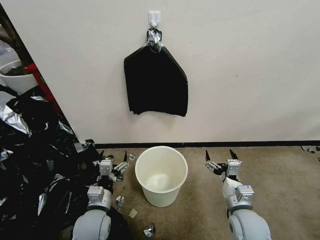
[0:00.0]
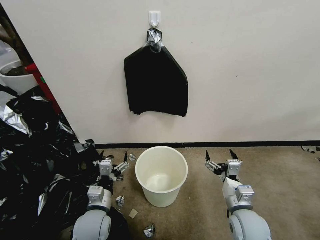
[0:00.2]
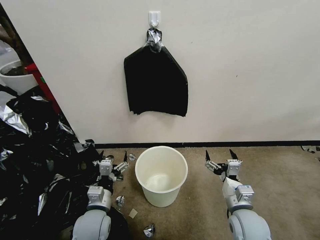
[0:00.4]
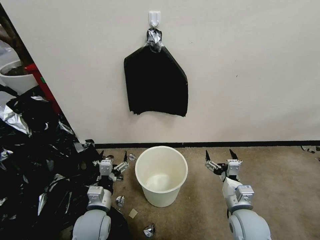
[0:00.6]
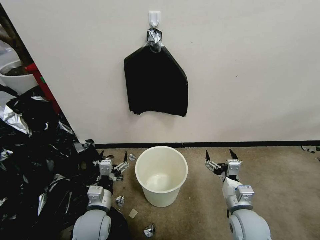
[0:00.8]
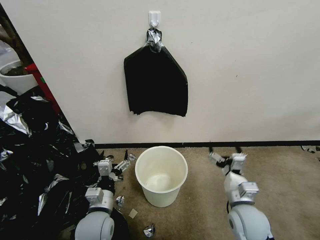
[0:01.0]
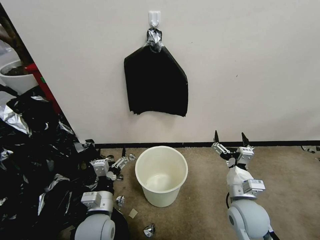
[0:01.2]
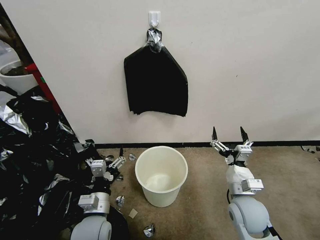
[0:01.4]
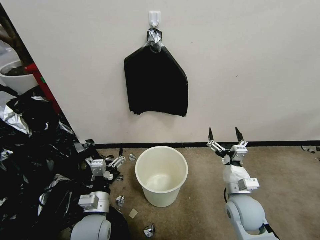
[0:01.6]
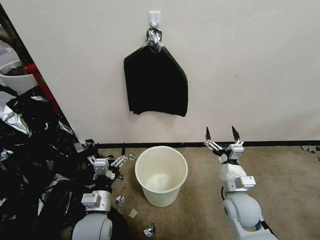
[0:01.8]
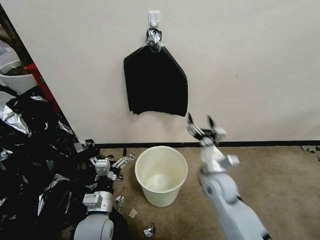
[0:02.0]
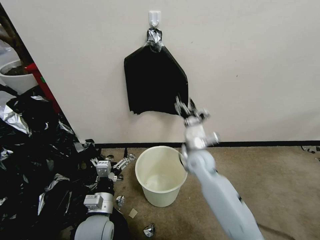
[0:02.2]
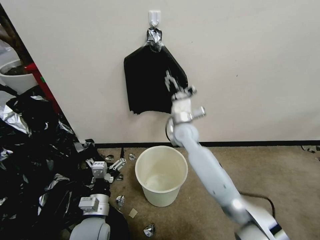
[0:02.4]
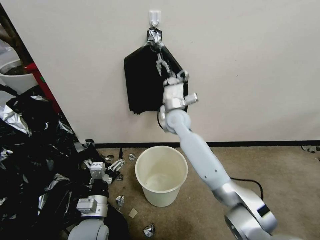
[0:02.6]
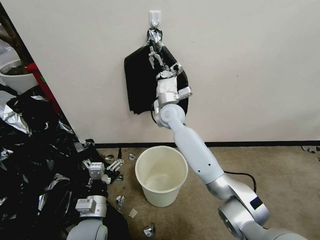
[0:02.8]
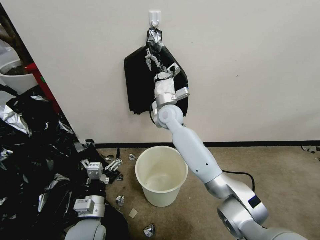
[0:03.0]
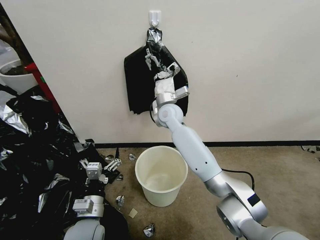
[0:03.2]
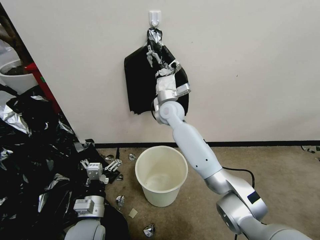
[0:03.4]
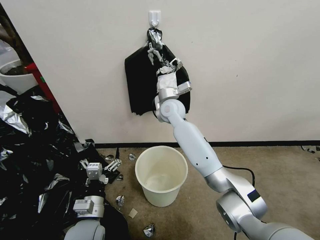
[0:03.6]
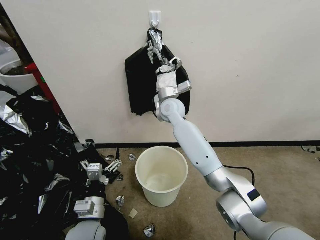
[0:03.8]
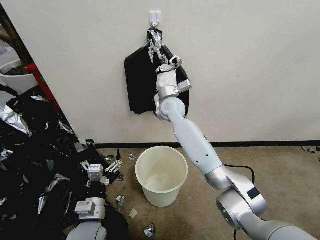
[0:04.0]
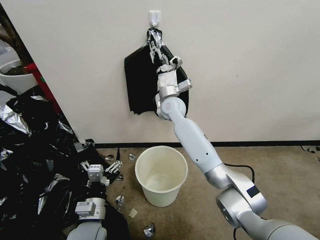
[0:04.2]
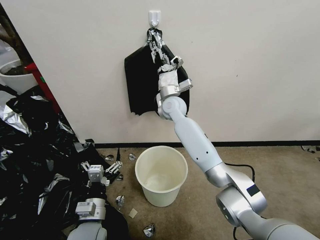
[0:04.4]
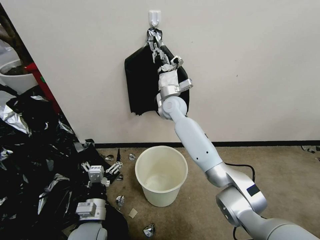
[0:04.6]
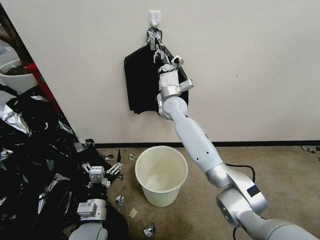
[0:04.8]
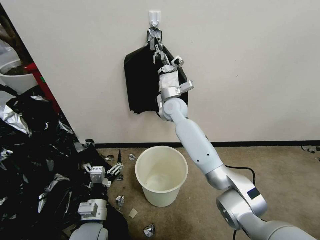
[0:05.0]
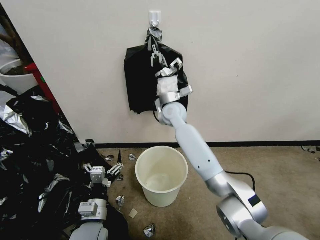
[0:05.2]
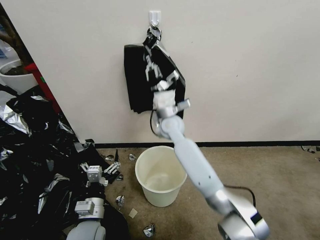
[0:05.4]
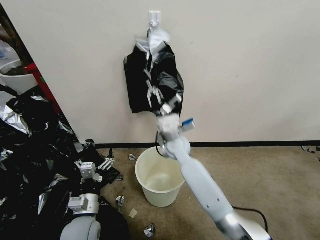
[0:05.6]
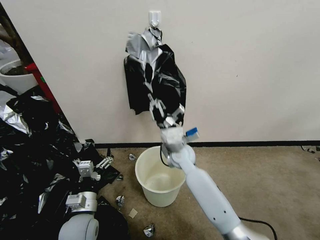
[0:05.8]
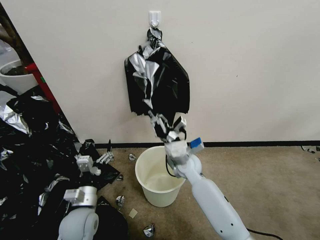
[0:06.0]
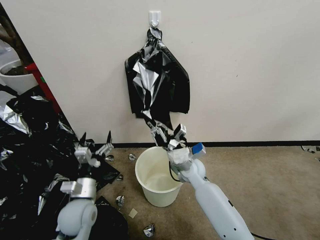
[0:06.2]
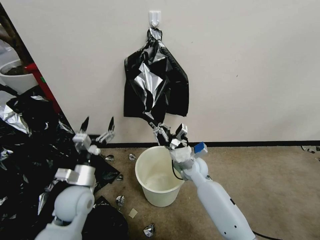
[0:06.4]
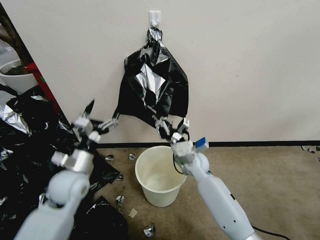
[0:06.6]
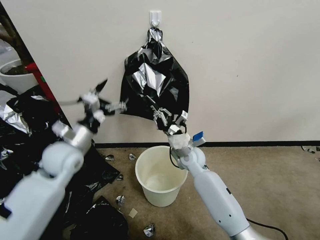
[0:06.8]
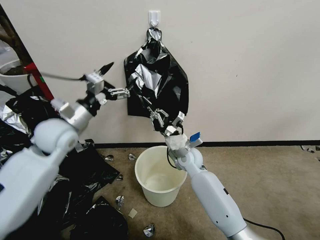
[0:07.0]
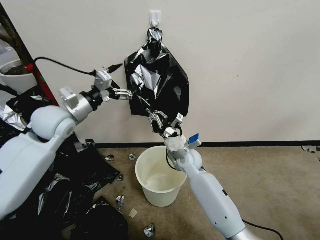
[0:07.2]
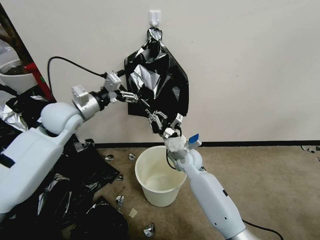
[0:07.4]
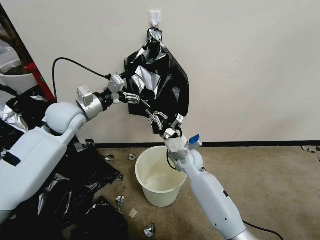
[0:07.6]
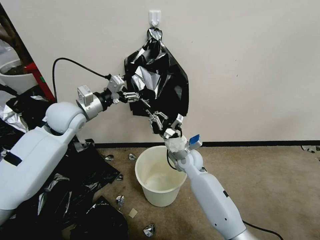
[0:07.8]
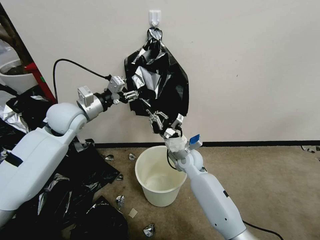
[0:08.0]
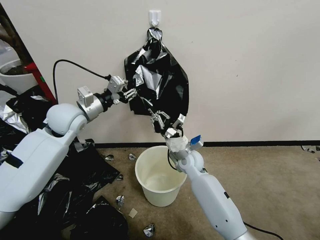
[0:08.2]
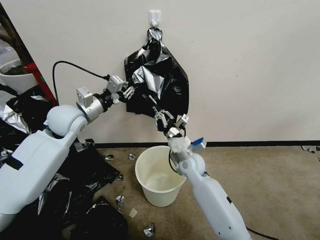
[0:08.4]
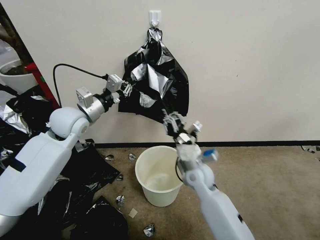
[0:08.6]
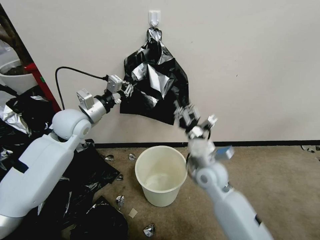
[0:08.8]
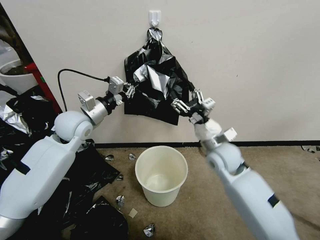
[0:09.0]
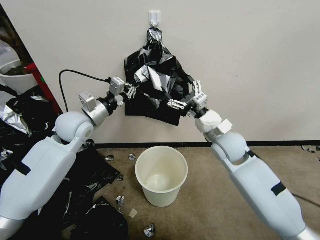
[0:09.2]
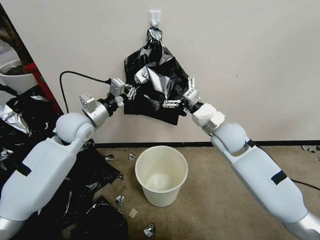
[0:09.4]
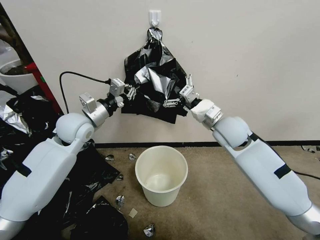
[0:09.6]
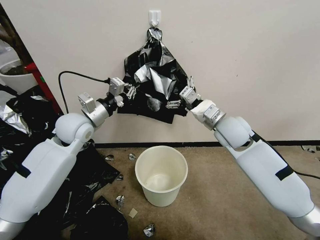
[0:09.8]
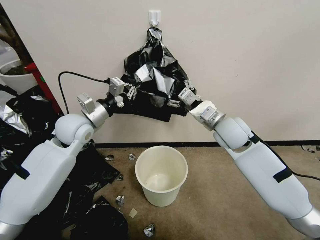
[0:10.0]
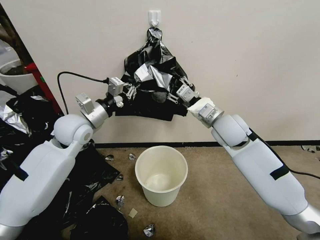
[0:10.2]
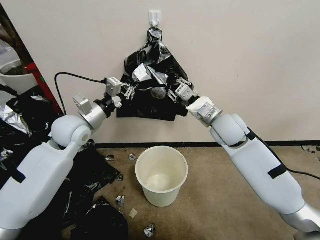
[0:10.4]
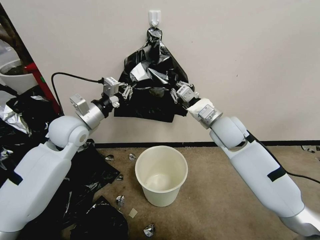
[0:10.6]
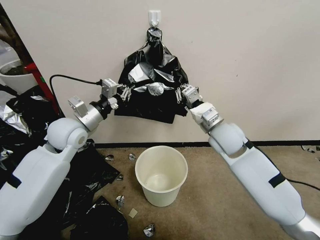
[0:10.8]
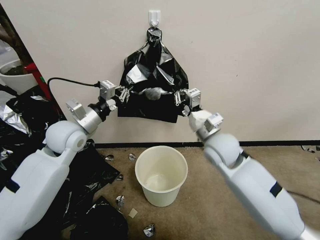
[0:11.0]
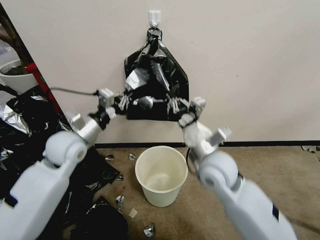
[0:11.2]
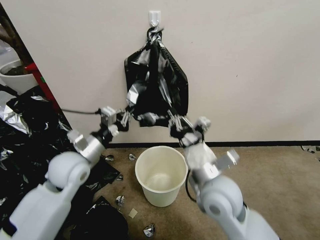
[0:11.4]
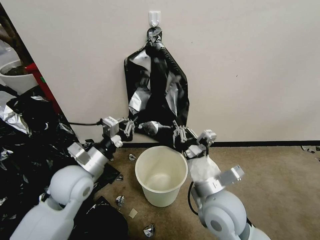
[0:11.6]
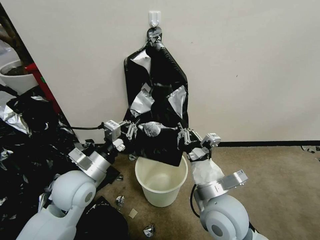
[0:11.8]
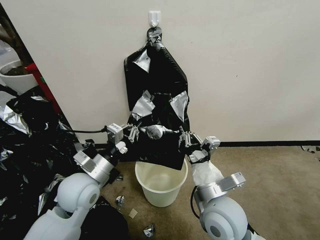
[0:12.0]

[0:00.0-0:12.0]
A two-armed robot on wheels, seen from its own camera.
Task of the whole recording: Place a trash bag onto the trash bin.
1.6 to 3.0 s: The right gripper shifts some 40 cm forward, to the left and upward.
3.0 to 4.4 s: The right gripper closes up.
4.4 to 6.0 s: The right gripper moves backward and downward, some 20 cm, and closes up. Meanwhile the left gripper ends up approximately 5 cm from where it was.
6.0 to 7.6 s: The left gripper shifts some 35 cm upward and forward.
7.6 to 9.0 s: The right gripper moves upward and to the right, some 15 cm, and opens. Meanwhile the left gripper closes.
9.0 to 10.4 s: The right gripper travels upward by approximately 10 cm, and closes.
10.4 to 12.0 s: The left gripper is displaced backward and downward by some 15 cm, while the right gripper heads backward, covering roughly 20 cm.

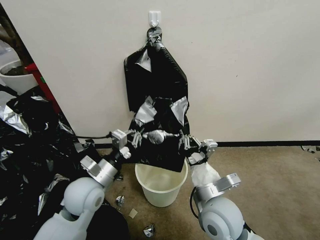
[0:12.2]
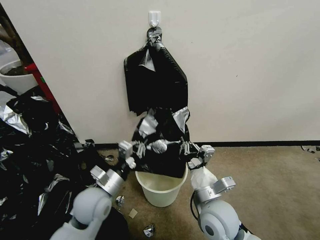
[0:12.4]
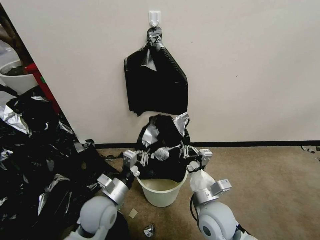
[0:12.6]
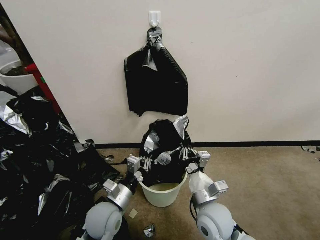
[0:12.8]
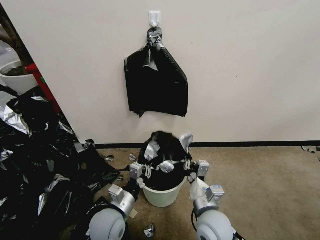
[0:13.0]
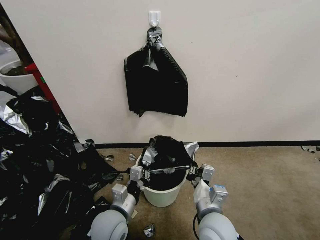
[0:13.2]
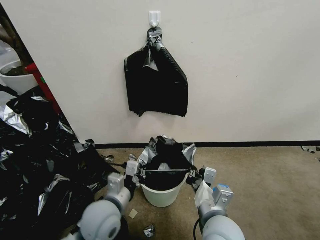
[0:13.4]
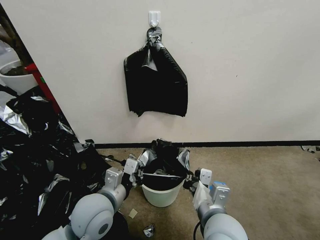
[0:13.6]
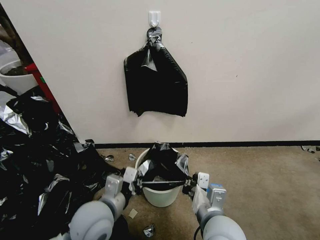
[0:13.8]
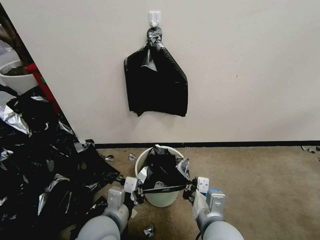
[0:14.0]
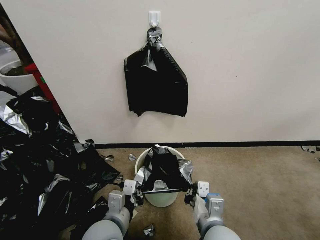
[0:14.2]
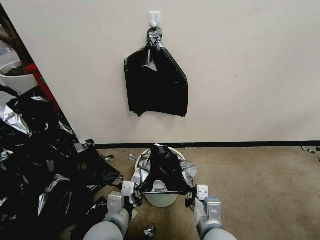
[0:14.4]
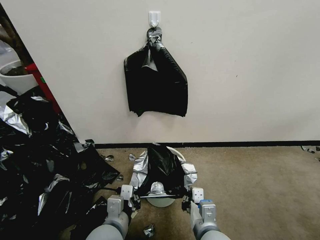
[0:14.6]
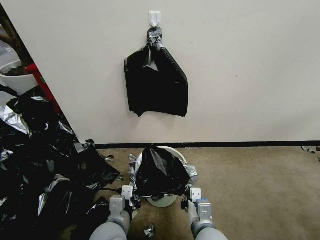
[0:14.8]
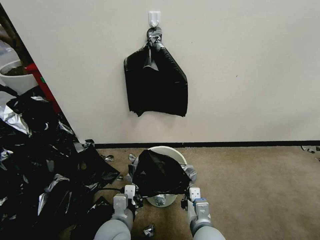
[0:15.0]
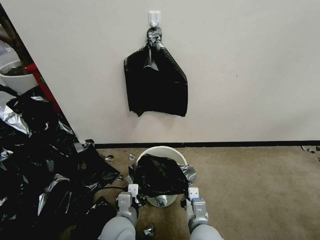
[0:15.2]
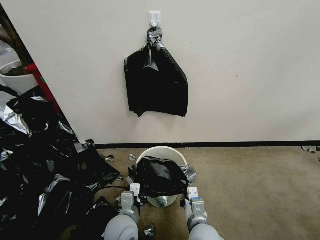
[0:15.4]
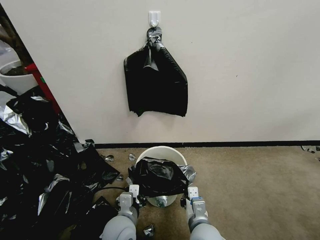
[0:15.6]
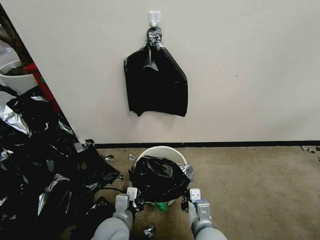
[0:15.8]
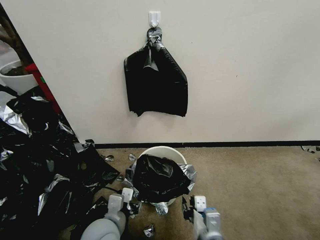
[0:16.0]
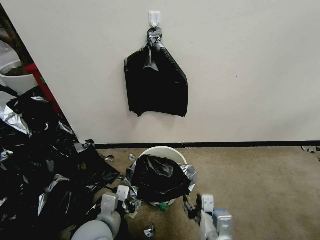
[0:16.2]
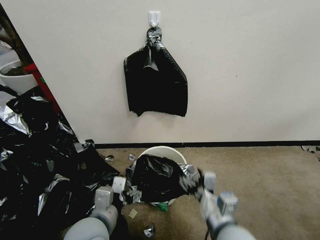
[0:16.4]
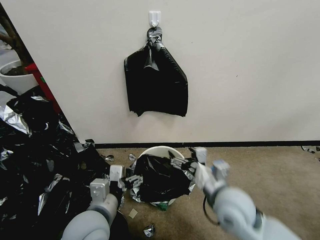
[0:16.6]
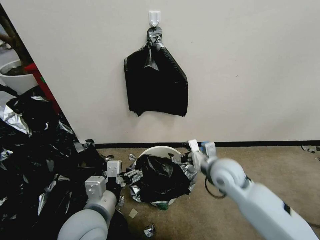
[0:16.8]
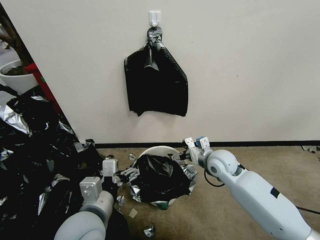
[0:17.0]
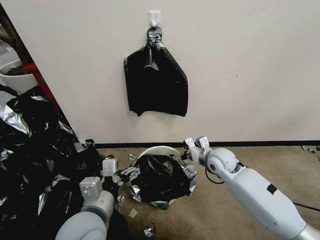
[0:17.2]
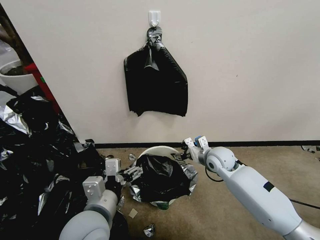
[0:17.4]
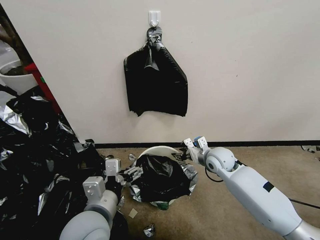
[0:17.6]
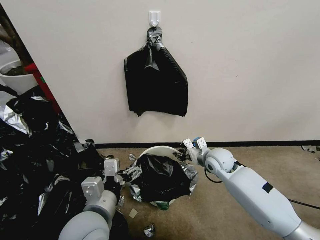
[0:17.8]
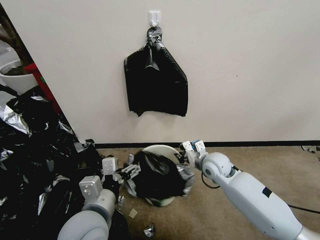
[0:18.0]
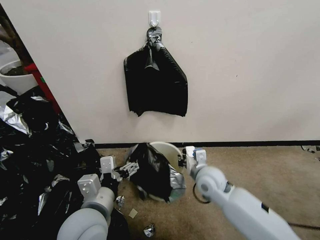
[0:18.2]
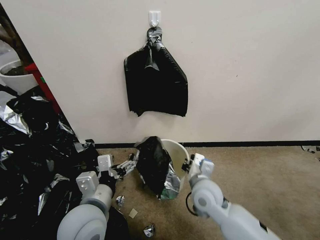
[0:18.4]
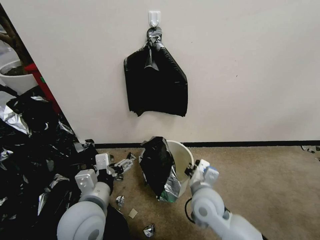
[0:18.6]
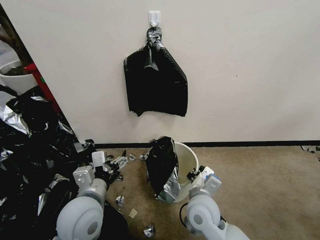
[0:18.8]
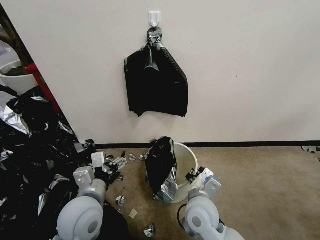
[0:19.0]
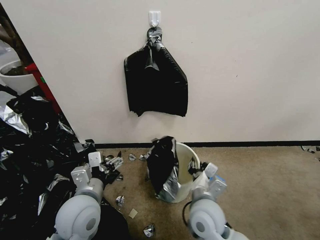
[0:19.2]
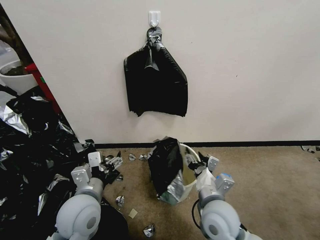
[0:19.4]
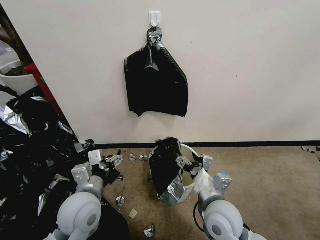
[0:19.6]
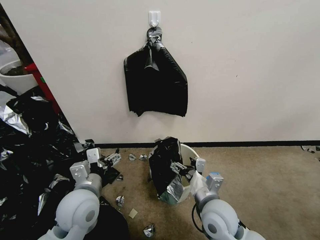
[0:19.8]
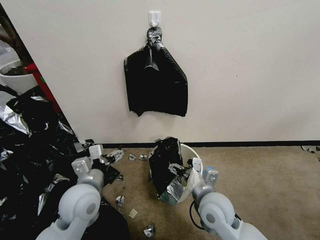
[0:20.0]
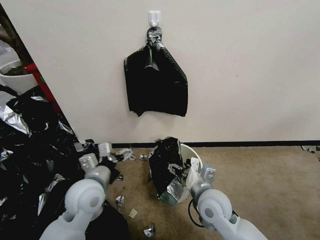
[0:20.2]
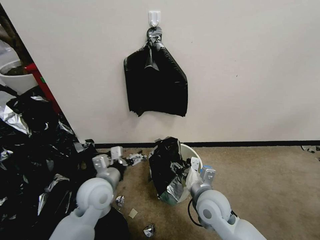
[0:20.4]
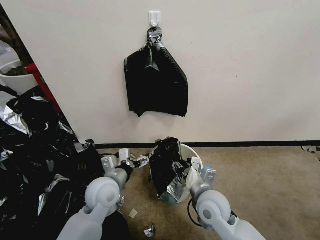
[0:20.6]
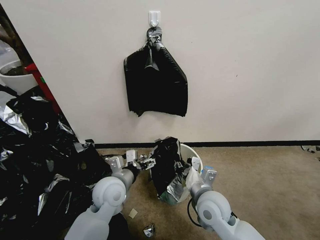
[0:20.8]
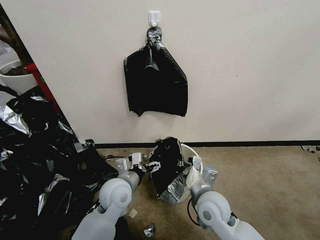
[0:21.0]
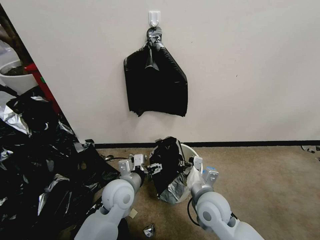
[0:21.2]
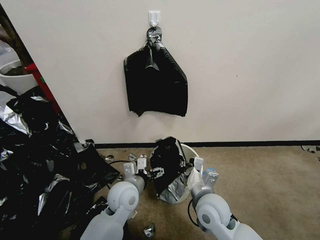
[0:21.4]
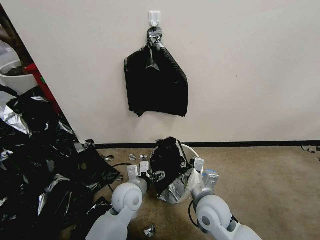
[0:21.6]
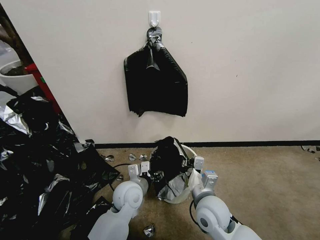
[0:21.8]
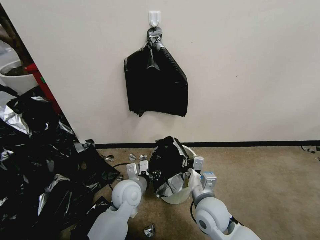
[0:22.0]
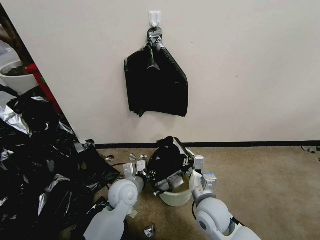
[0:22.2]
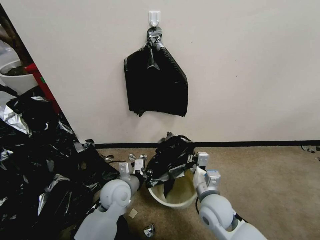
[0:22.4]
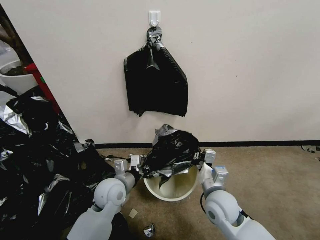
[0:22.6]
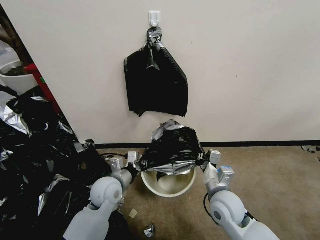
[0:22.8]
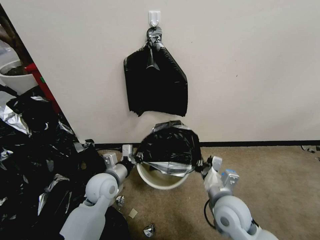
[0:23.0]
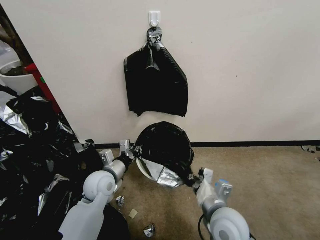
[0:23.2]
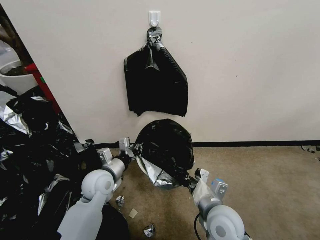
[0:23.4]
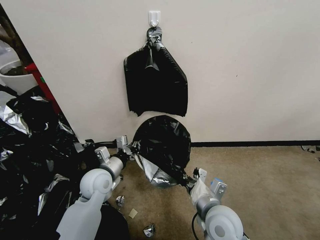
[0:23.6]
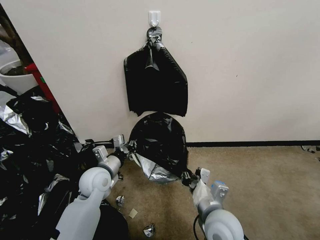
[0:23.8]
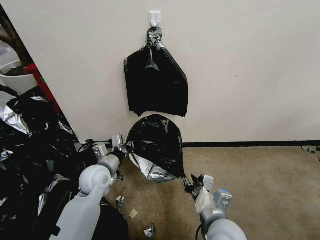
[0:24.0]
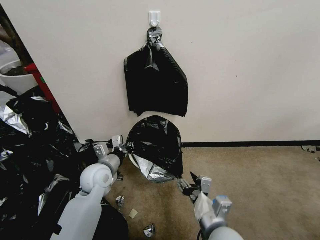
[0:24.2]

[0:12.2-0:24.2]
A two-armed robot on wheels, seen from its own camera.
Task of the whole recording: Place a trash bag onto the trash bin.
12.2 to 13.8 s: The left gripper moves backward, roughly 5 cm, and goes downward and returns, about 10 cm each way. The right gripper moves about 10 cm downward and comes back.
13.8 to 15.2 s: The two grippers go approximately 10 cm downward.
15.2 to 16.6 s: The left gripper travels upward by some 10 cm, and opens up, while the right gripper travels upward, to the right and forward by about 15 cm, and opens its fingers.
16.6 to 18.2 s: The right gripper shifts approximately 15 cm forward and downward, and closes its fingers.
18.2 to 19.8 s: The left gripper moves forward, some 5 cm. The right gripper travels backward by some 10 cm, and opens its fingers.
19.8 to 21.2 s: The right gripper closes up; the left gripper is displaced to the right, downward and forward by approximately 10 cm.
21.2 to 22.6 s: The left gripper closes up.
22.6 to 24.2 s: The right gripper shifts some 10 cm backward, and opens, while the left gripper travels to the left by some 5 cm.
